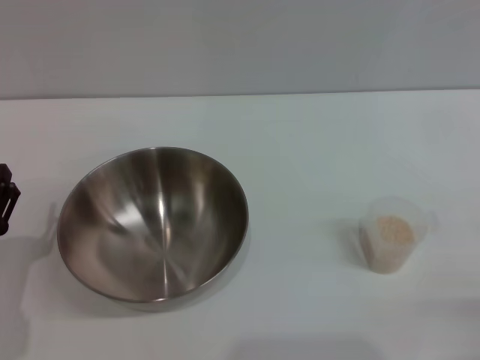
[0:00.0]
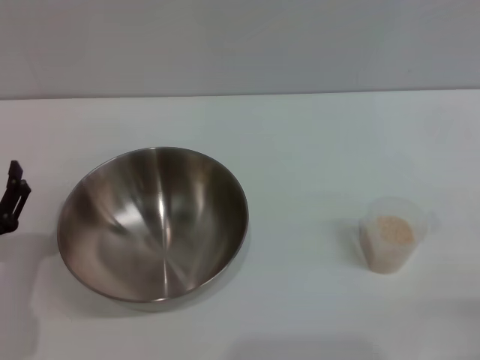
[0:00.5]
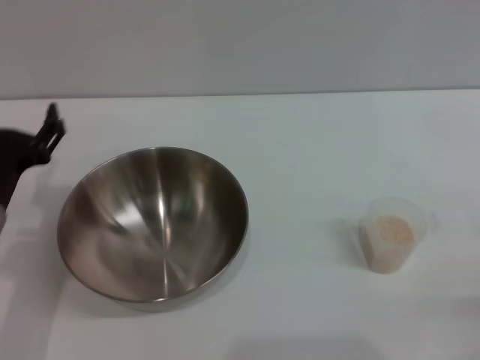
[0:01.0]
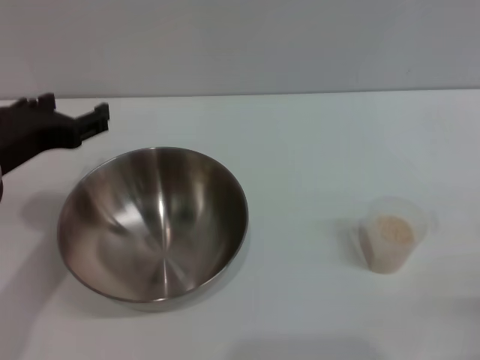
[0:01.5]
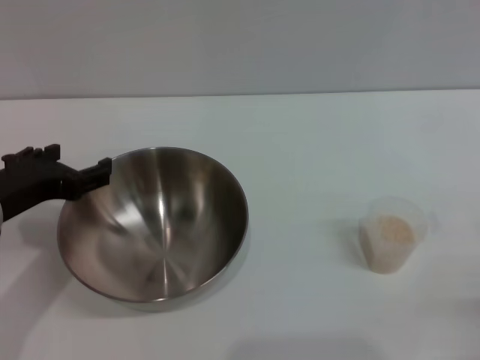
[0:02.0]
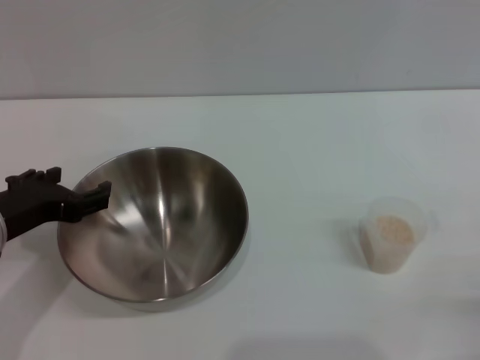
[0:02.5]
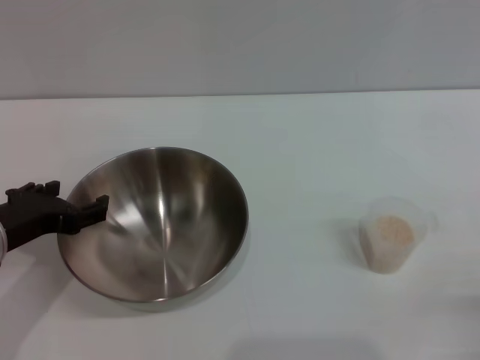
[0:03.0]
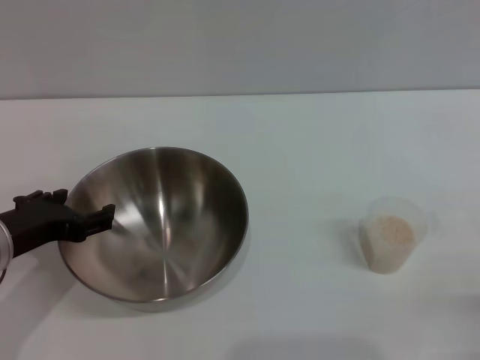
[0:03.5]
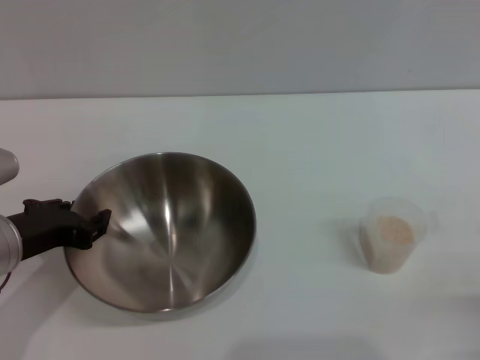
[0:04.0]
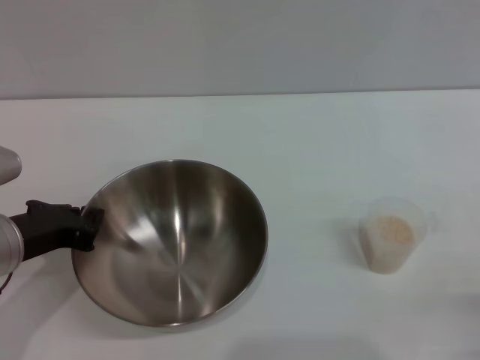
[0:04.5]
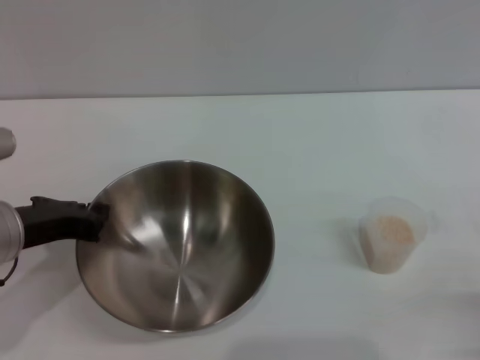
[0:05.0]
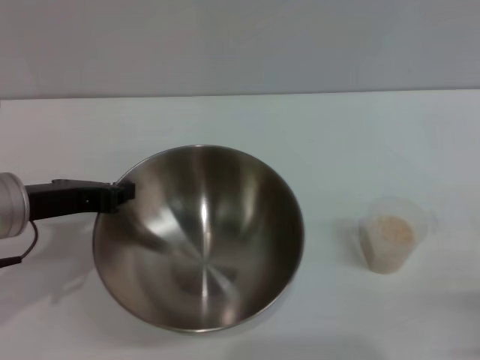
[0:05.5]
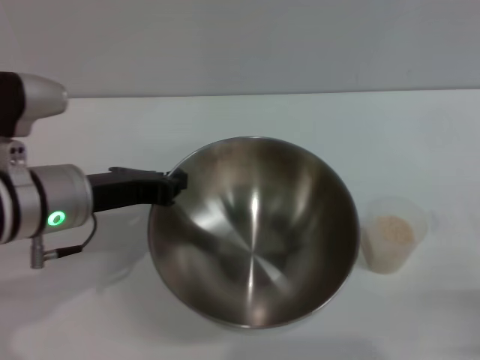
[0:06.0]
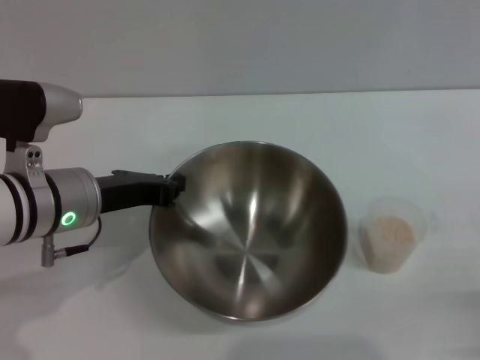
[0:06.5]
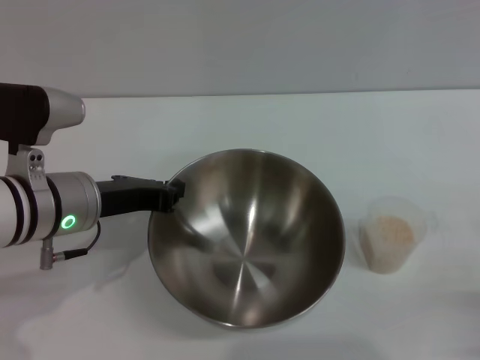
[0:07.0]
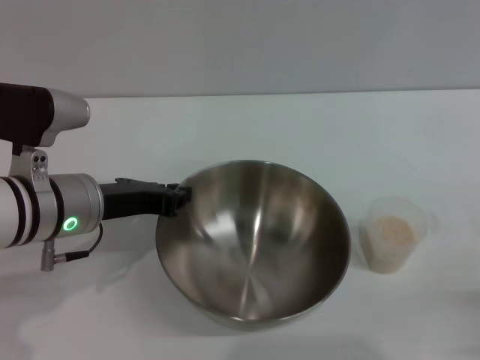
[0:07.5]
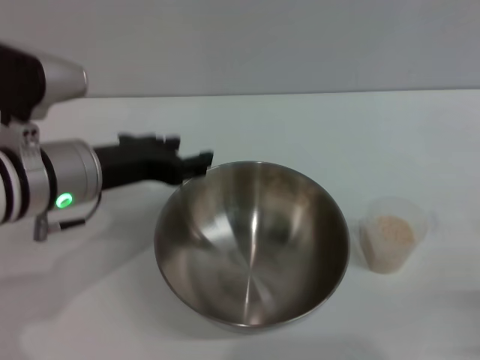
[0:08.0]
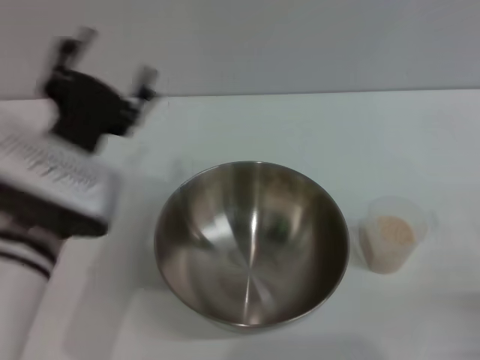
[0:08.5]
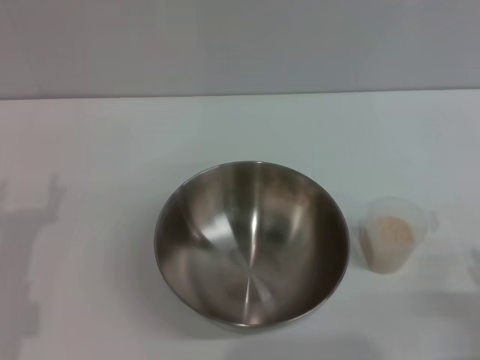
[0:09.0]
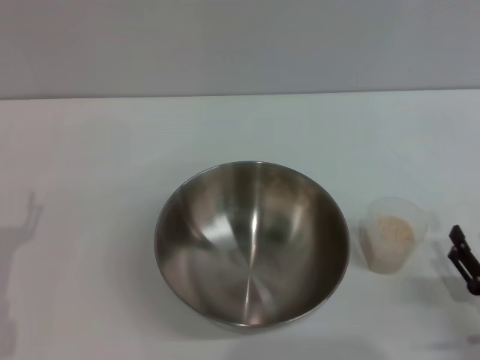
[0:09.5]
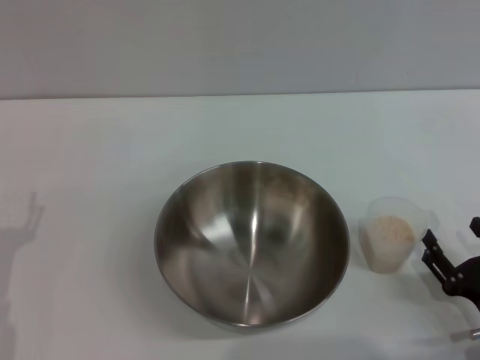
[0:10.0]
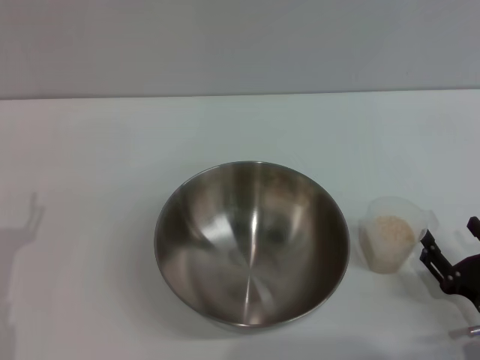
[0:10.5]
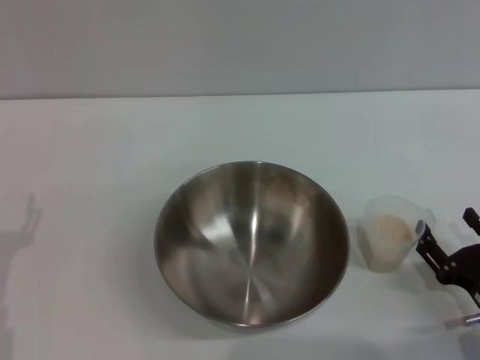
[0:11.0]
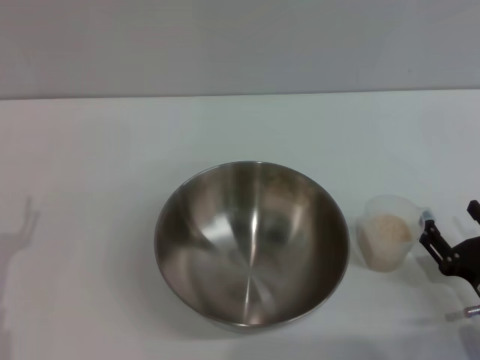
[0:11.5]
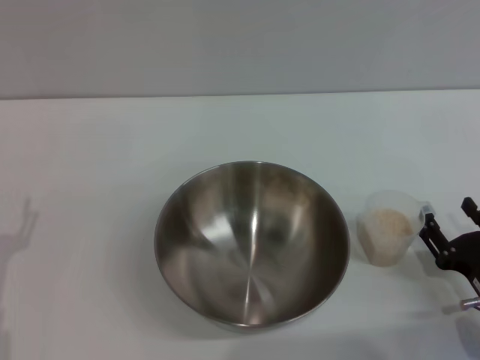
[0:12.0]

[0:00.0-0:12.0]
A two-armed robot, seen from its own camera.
Task of the whole recording: Place the bowl in the middle of the table with one hand and pour the rice from the grain cup into it with the other hand.
Step, 0:00.0 to 0:05.5: Pick up the bowl with the left gripper.
Step, 0:06.0 to 0:08.0: Place the bowl in the center of view with the left gripper.
0:00.0 to 0:02.0: The left gripper shifts roughly 15 cm upward and forward.
0:02.0 to 0:04.0: The left gripper closes its fingers.
0:04.0 to 0:06.0: The left gripper heads to the right, covering about 5 cm, and closes its fingers.
0:06.0 to 0:08.0: The left gripper opens up.
0:08.0 to 0:10.0: The right gripper moves approximately 5 cm. The left gripper goes about 20 cm downward, to the left and backward, and opens up.
0:10.0 to 0:12.0: There are only small adjustments of the grippers.

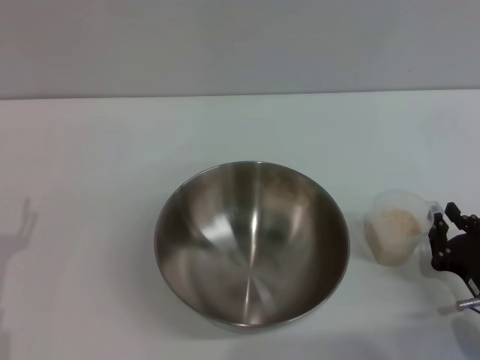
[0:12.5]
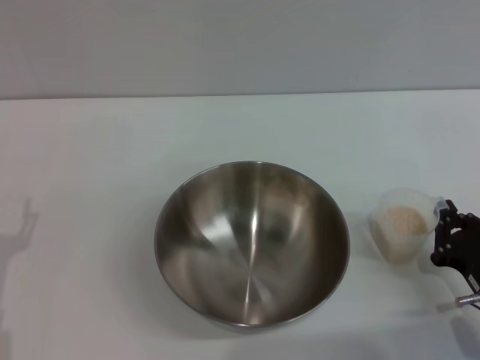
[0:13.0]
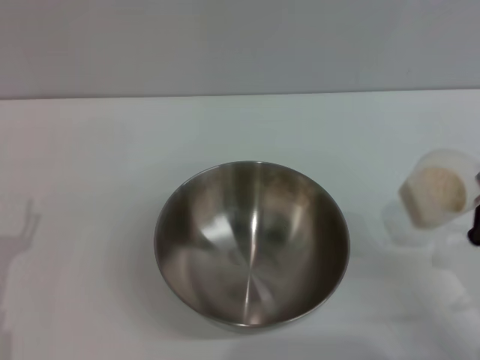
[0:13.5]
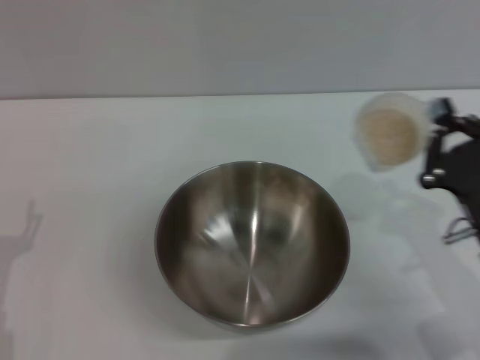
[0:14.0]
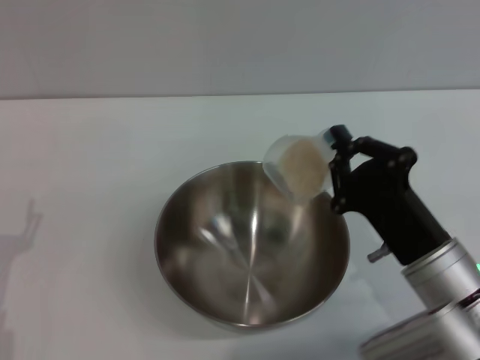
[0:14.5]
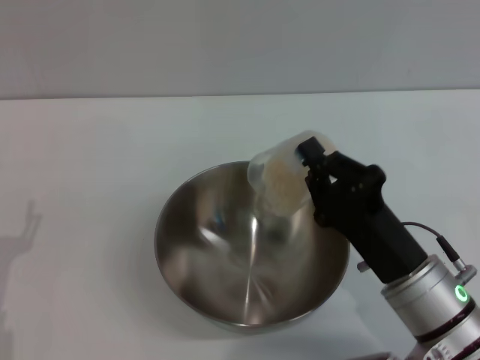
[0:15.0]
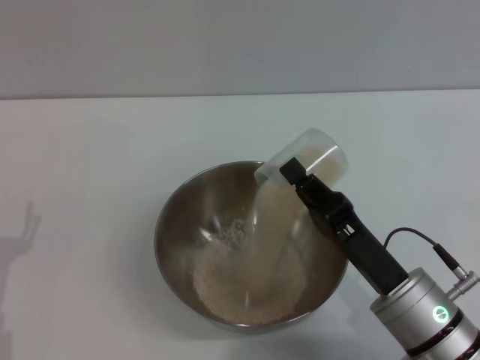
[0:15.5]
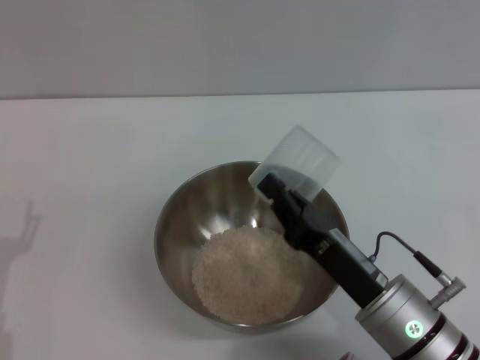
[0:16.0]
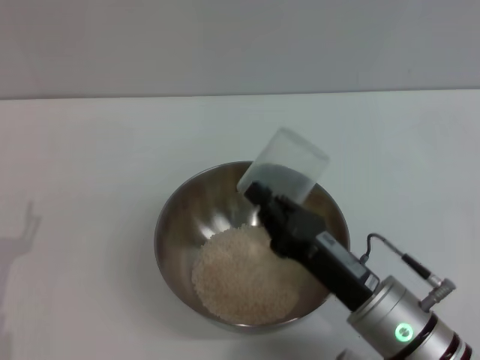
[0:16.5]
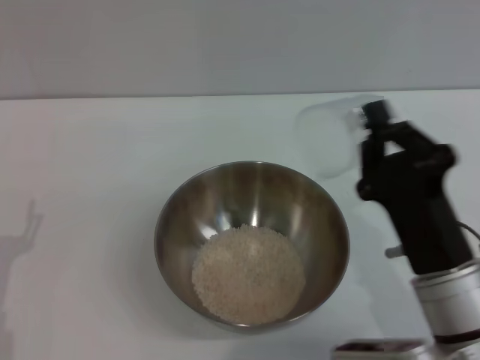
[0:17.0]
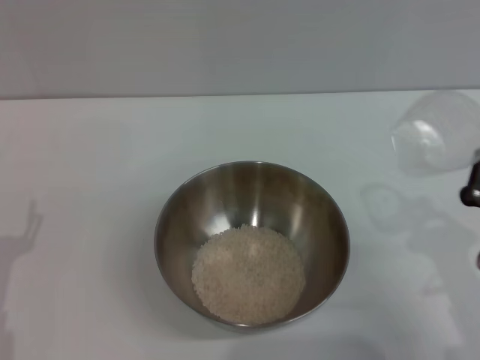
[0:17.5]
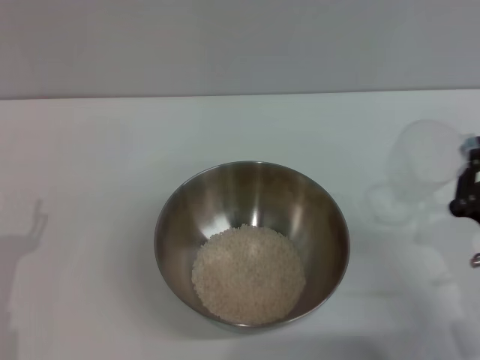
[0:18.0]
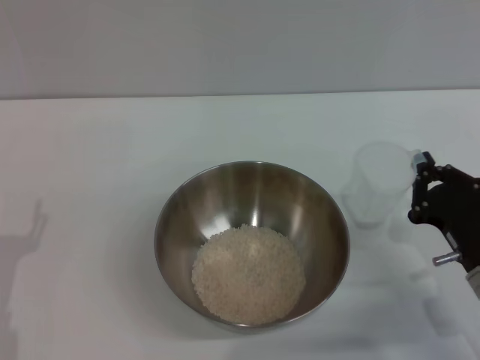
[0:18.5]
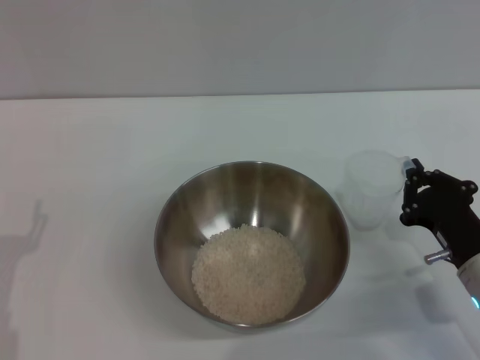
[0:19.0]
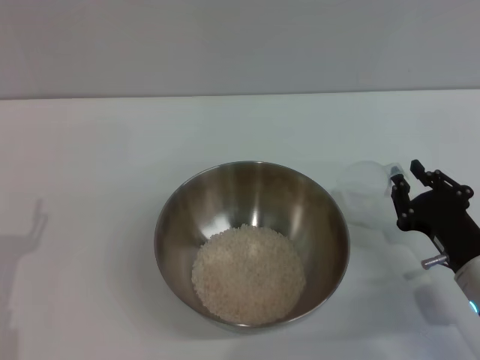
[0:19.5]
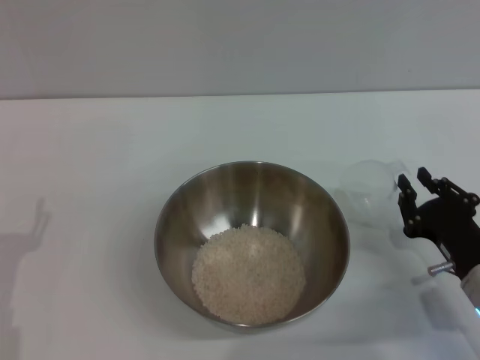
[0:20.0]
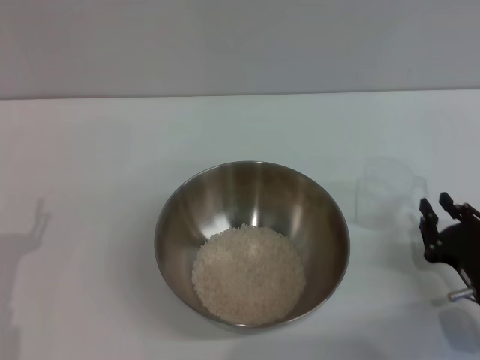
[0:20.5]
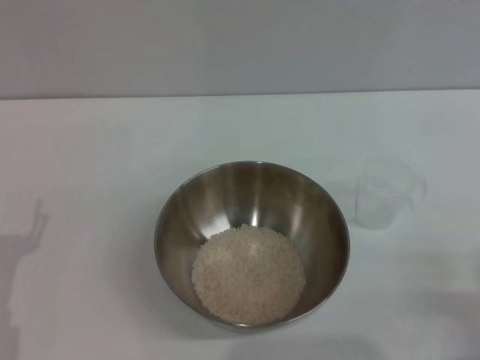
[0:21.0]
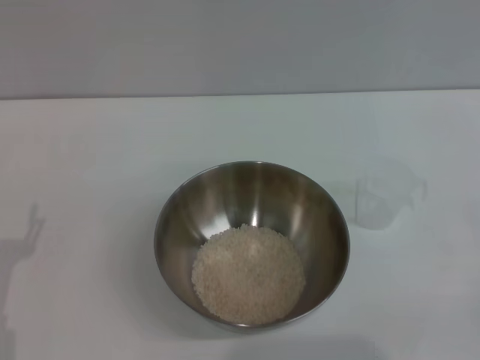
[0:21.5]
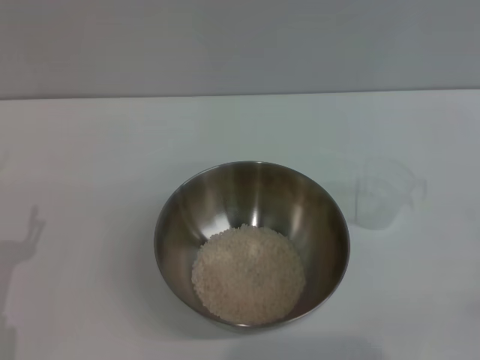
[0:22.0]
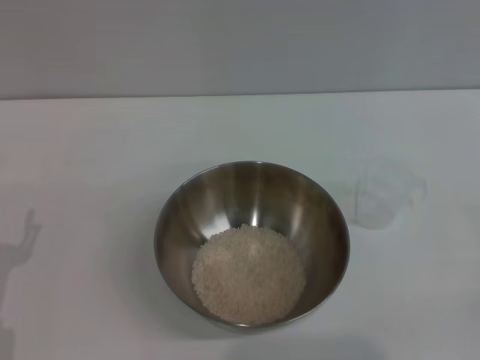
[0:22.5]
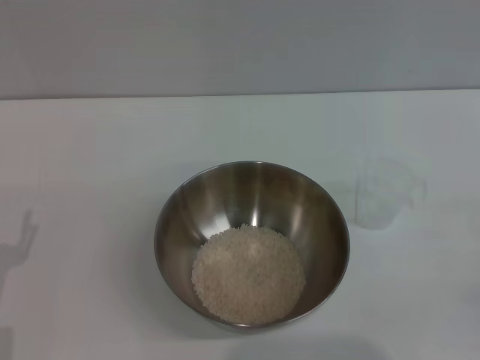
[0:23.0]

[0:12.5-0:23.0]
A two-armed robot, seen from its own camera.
Task of the whole recording: Place the bowl in the middle of the table with one hand and pour the rice from the grain cup into it with the other hand.
Step, 0:14.0 to 0:16.5: Pour the rice from the cup into the bowl with the right gripper.
Step, 0:17.0 to 0:20.5: Place the cup on the table with the right gripper.
0:12.5 to 0:14.5: The right gripper shifts approximately 10 cm to the left and upward, and closes its fingers.
0:14.5 to 0:16.5: The right gripper ends up approximately 5 cm from where it was.
0:16.5 to 0:19.0: The right gripper heads to the right, covering roughly 10 cm.
0:19.0 to 0:21.0: The right gripper goes roughly 15 cm backward and to the right.
